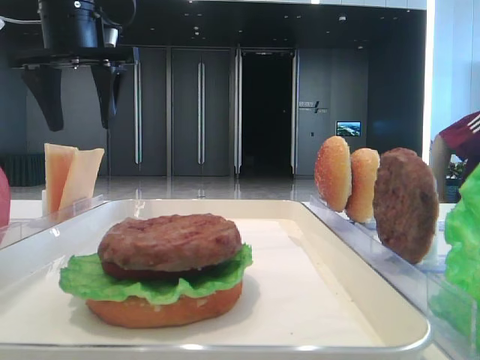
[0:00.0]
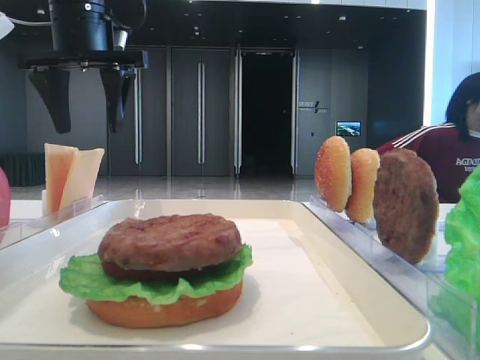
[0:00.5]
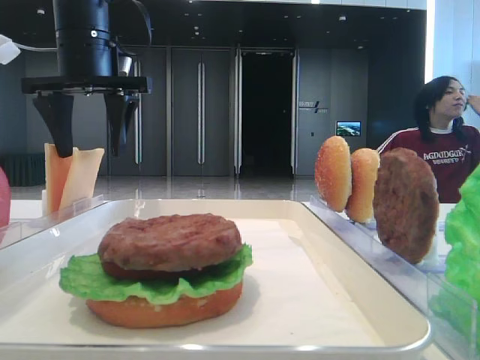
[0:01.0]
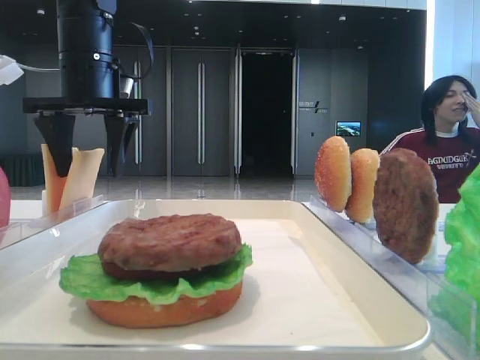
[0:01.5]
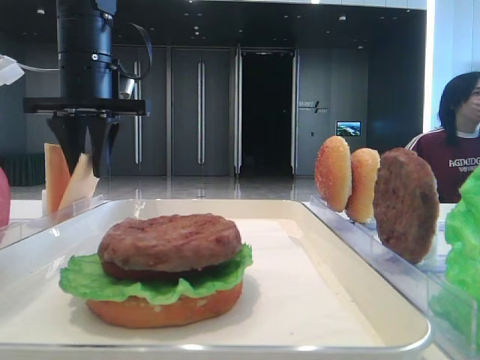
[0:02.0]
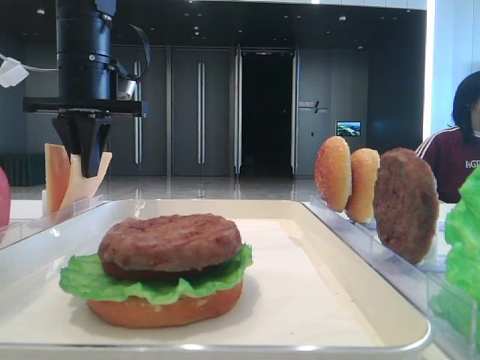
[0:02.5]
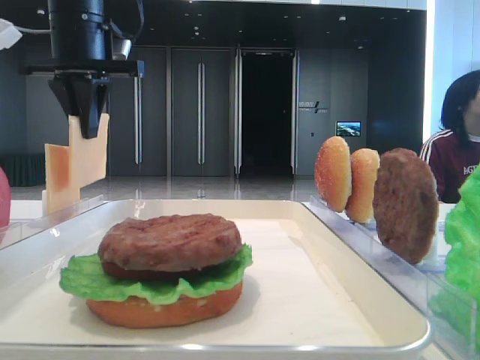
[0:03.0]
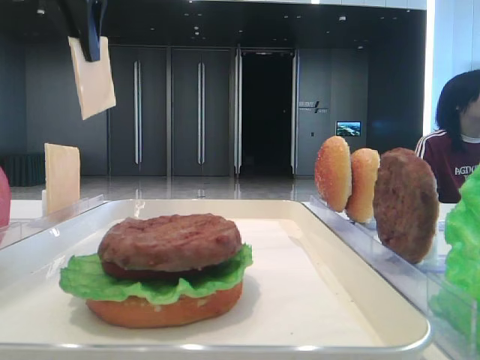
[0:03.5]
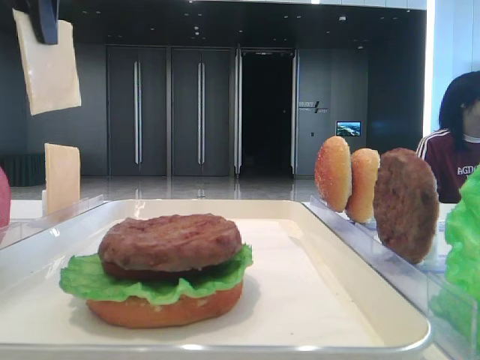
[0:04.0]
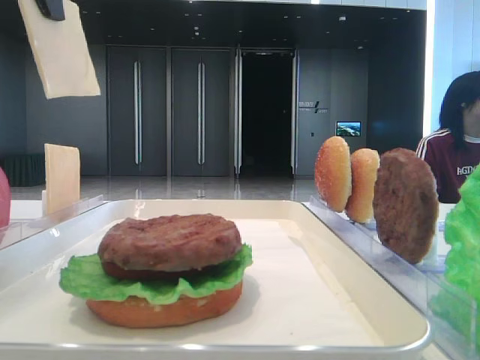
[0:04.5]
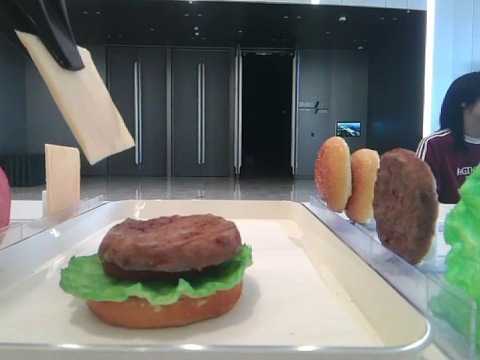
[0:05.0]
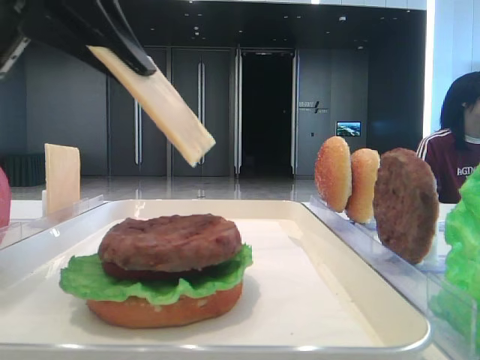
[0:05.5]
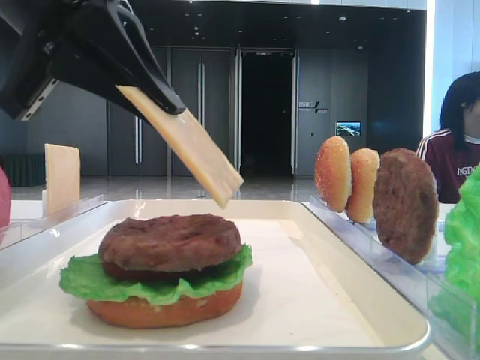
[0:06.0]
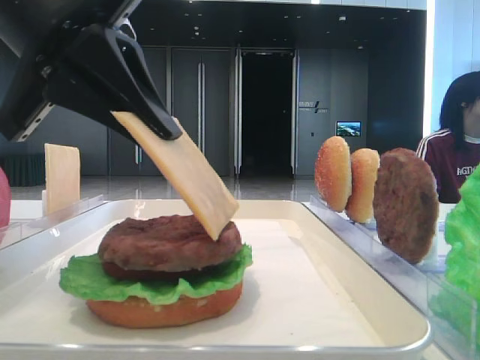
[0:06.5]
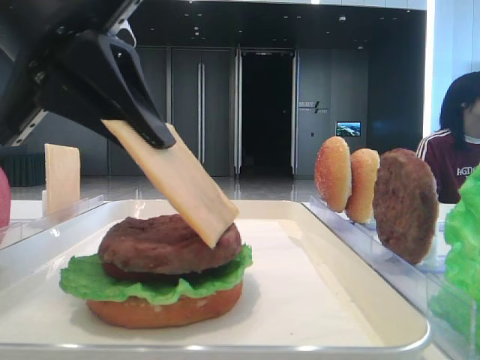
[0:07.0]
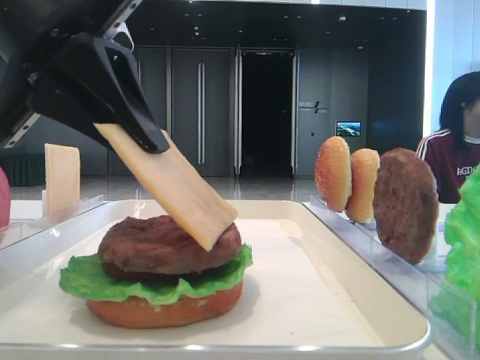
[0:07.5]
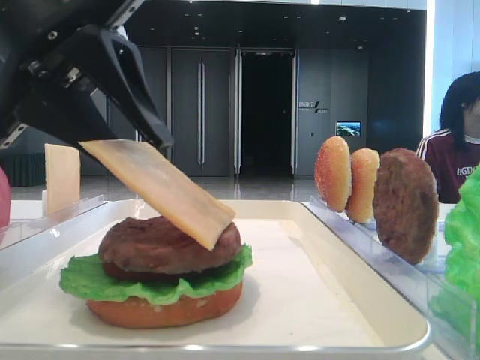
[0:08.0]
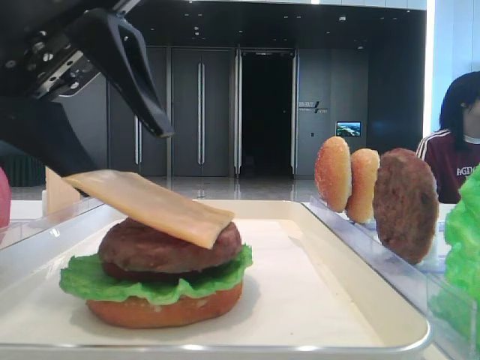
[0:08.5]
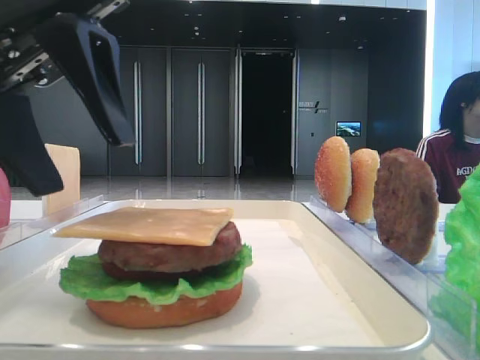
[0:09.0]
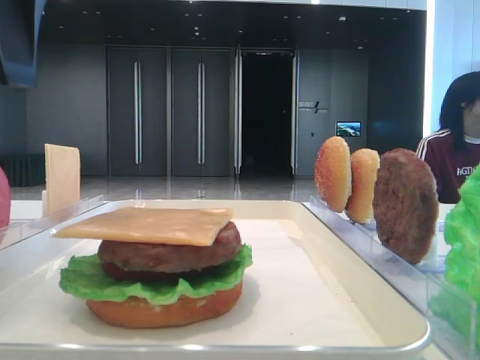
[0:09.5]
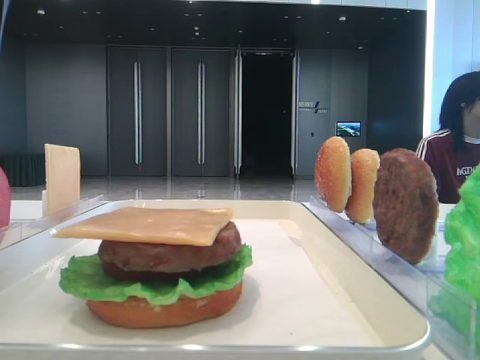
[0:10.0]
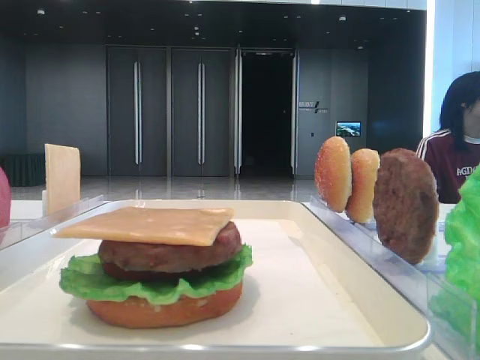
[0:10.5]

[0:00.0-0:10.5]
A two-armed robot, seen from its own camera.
Step, 0:00.0 to 0:02.5: Pick up the cheese slice with the left hand.
Step, 0:03.0 to 0:08.5: Place the cheese slice on the patty with the left hand.
0:00.0 to 0:02.0: The left gripper heads downward, covering some 5 cm, and closes.
0:02.0 to 0:04.0: The left gripper moves upward and backward, about 15 cm.
0:04.0 to 0:06.5: The left gripper heads downward, backward and to the right, covering some 20 cm.
0:06.5 to 0:08.5: The left gripper opens up.
0:08.5 to 0:10.5: The left gripper shifts roughly 15 cm to the left and upward.

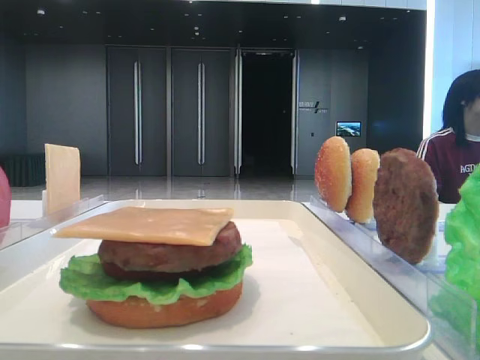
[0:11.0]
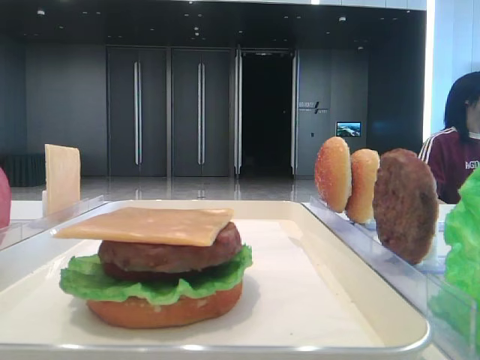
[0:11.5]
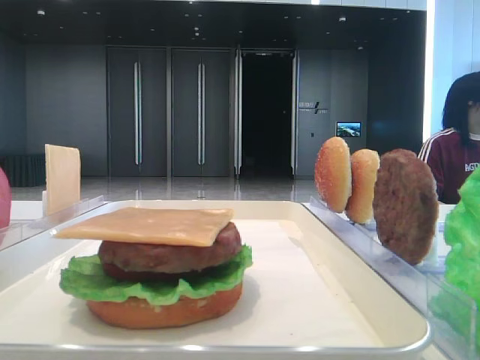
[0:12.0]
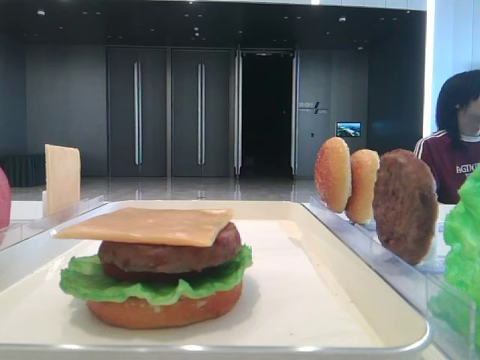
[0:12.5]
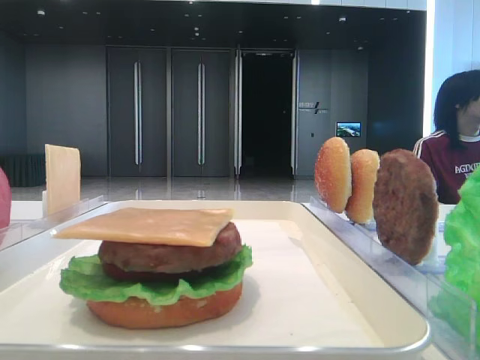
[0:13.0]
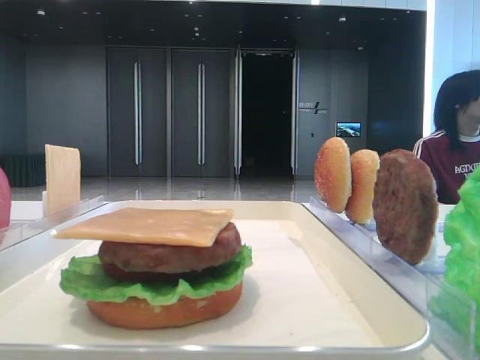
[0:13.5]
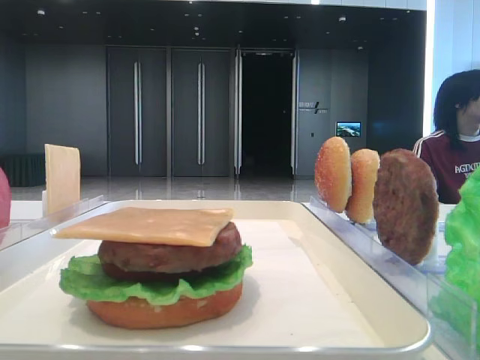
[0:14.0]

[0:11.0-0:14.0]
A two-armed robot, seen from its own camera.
0:12.5 to 0:14.0: Both grippers stay put.

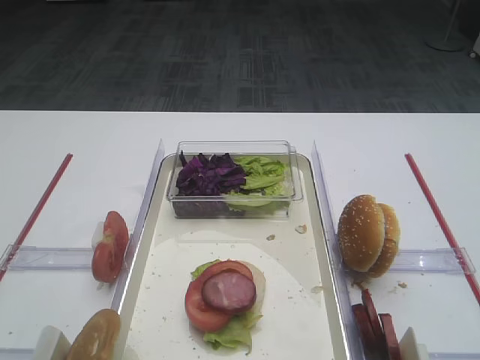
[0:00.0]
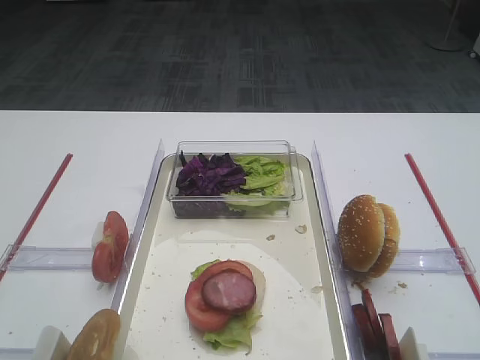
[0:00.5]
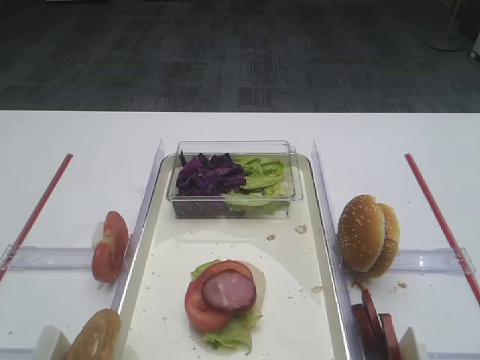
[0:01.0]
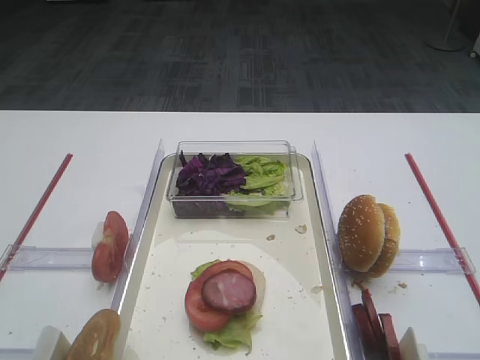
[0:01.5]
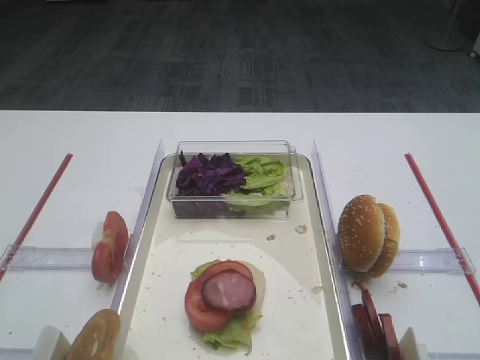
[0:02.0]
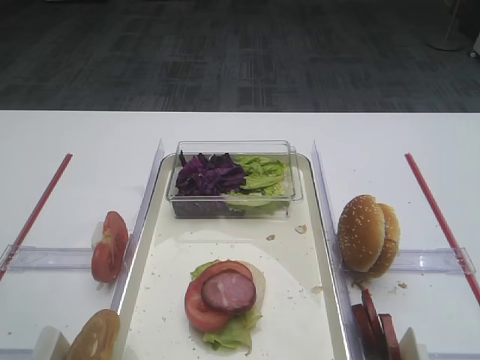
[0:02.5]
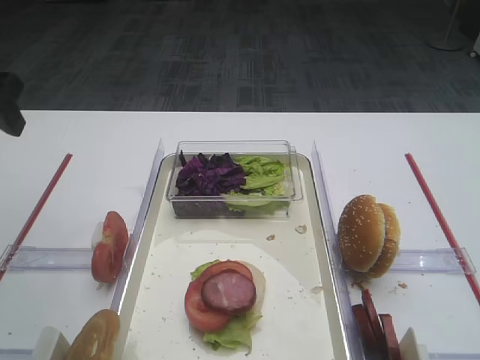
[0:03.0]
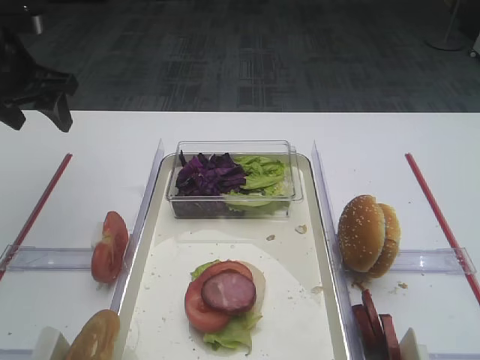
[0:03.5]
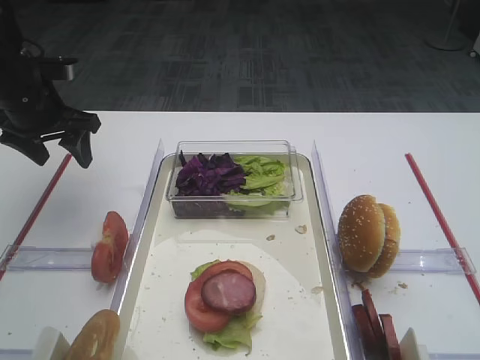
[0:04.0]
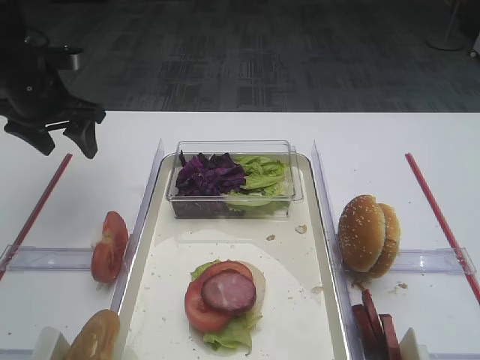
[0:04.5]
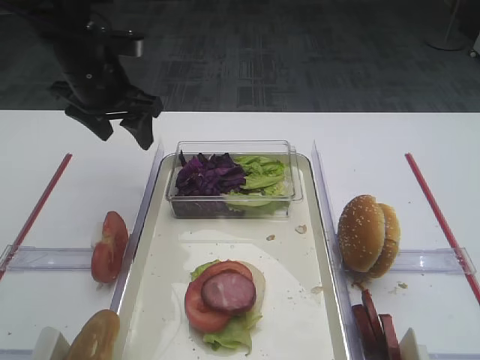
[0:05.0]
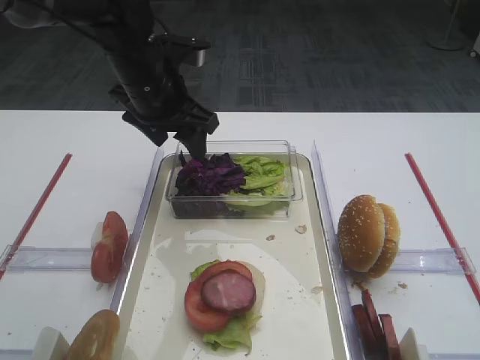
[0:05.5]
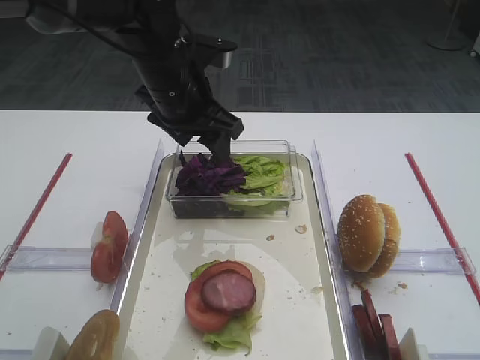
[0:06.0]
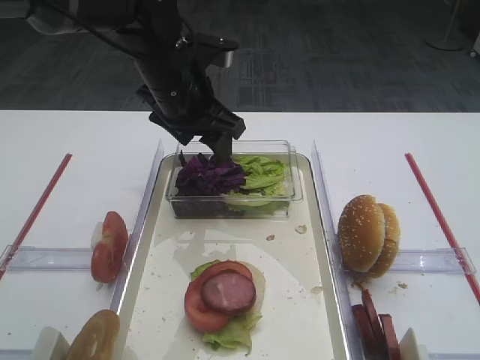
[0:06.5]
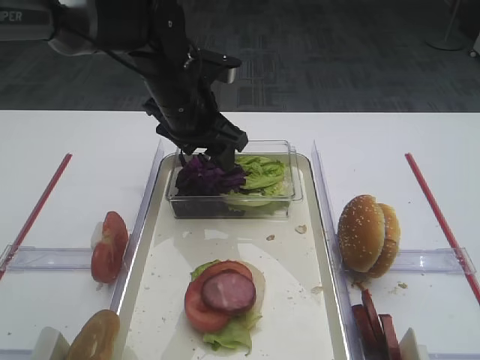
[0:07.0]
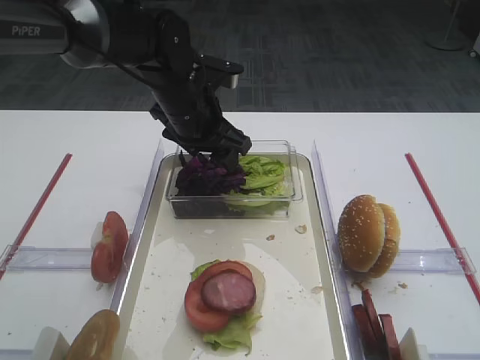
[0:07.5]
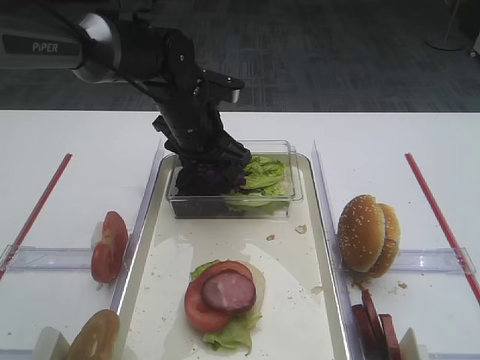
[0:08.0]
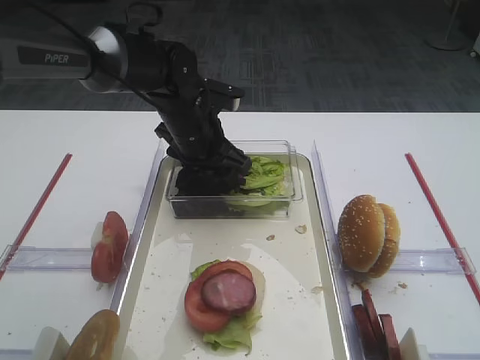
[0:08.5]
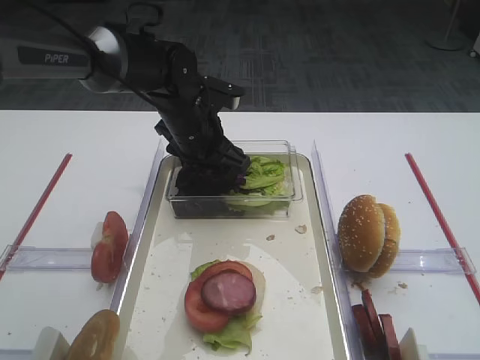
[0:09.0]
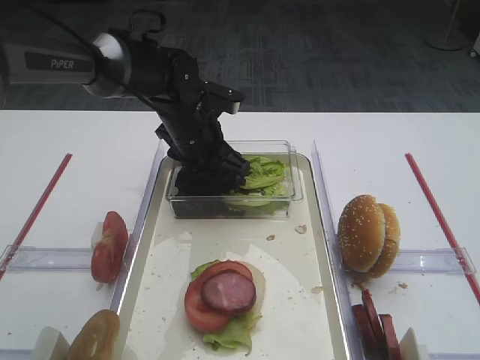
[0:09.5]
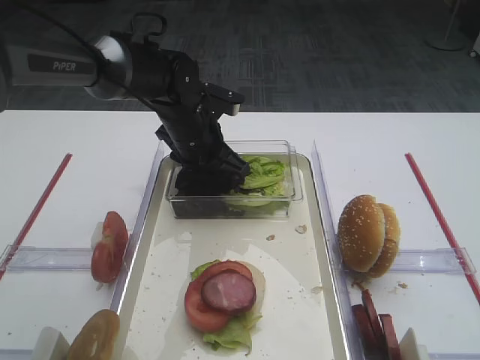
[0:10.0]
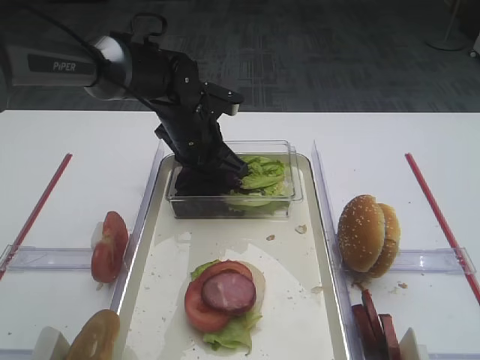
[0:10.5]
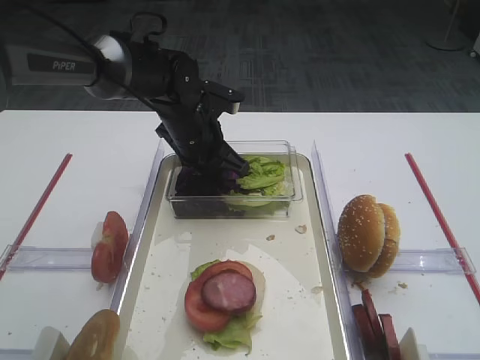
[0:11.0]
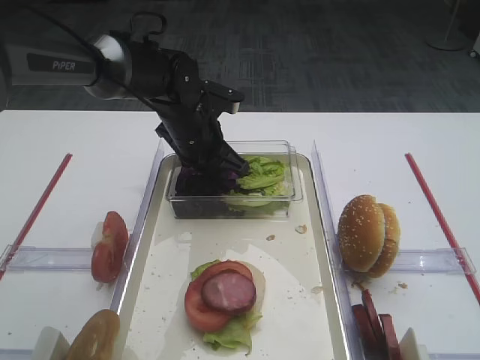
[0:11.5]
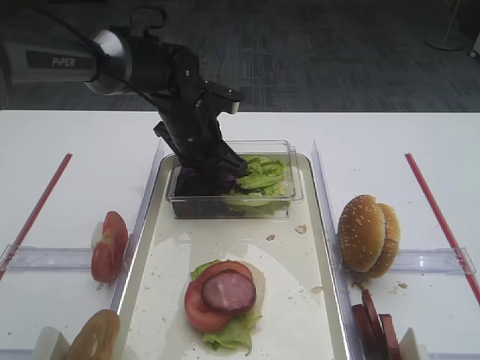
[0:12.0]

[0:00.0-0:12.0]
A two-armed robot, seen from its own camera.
0:02.0 to 0:04.0: The left gripper goes about 35 cm forward.
0:04.0 to 0:06.0: The left gripper is displaced to the right by roughly 20 cm.
0:06.0 to 0:08.0: The left gripper goes roughly 5 cm downward.
0:08.0 to 0:10.0: The grippers move only a little.
0:10.0 to 0:12.0: The left gripper closes up.
